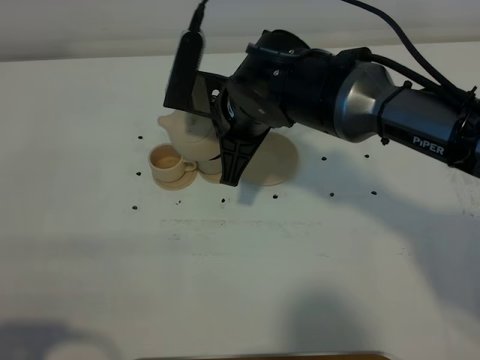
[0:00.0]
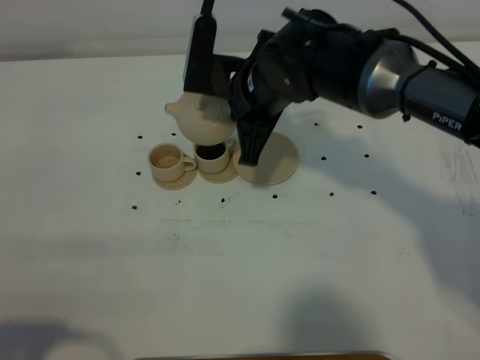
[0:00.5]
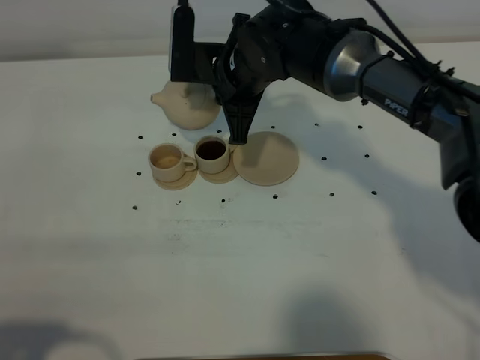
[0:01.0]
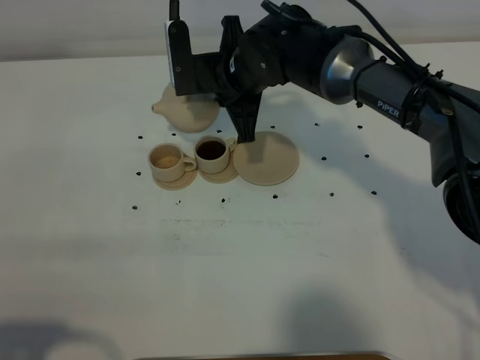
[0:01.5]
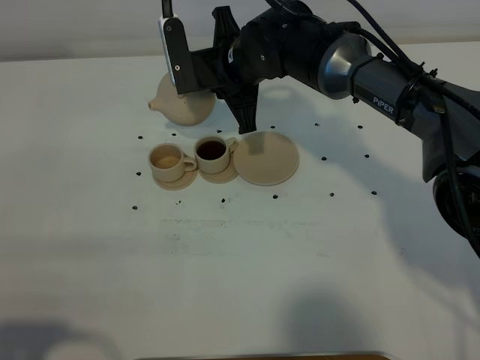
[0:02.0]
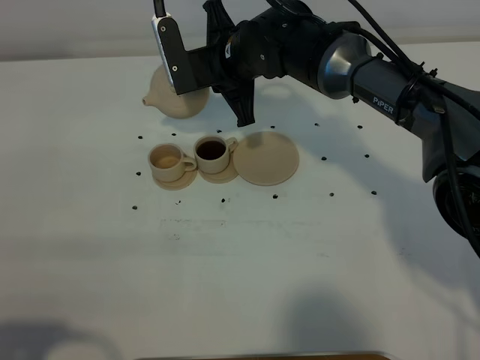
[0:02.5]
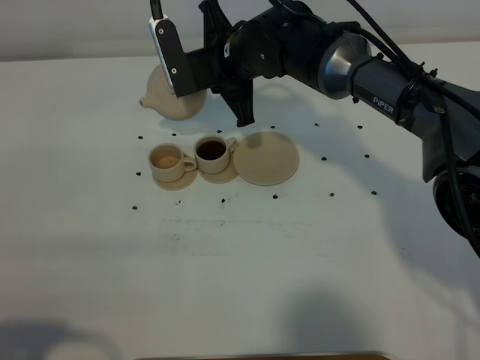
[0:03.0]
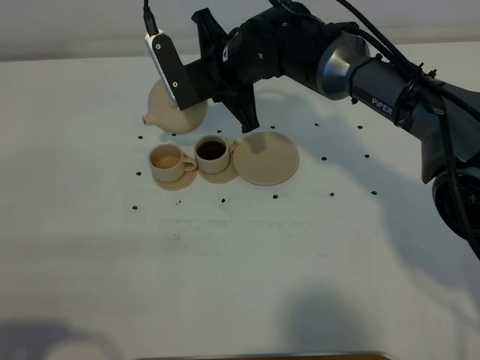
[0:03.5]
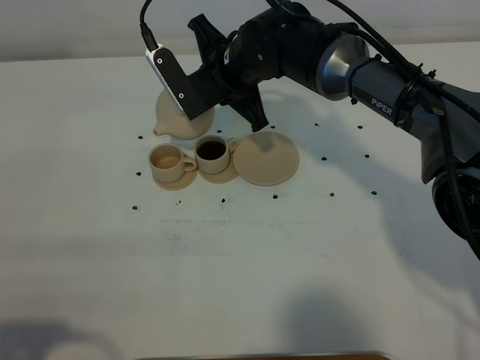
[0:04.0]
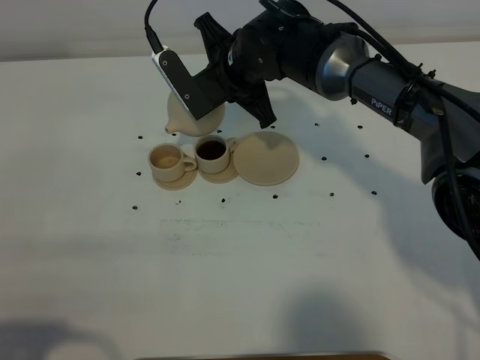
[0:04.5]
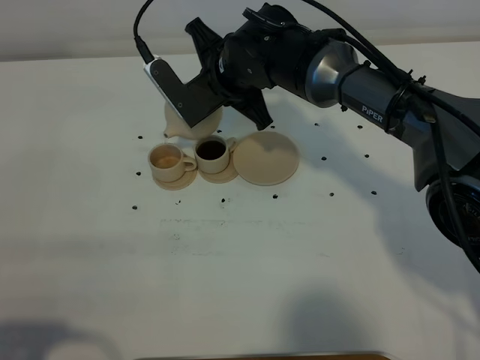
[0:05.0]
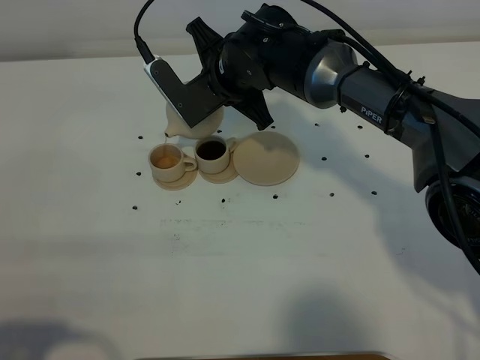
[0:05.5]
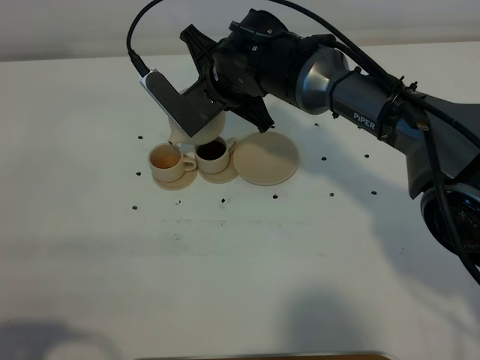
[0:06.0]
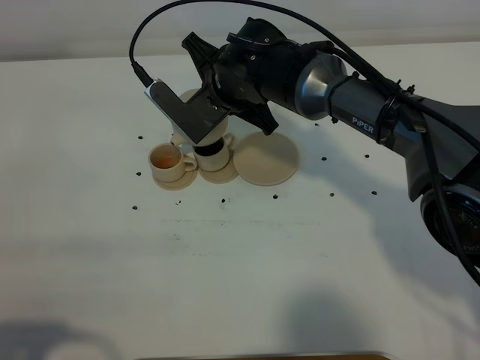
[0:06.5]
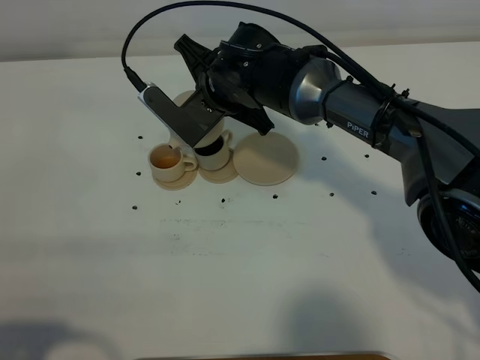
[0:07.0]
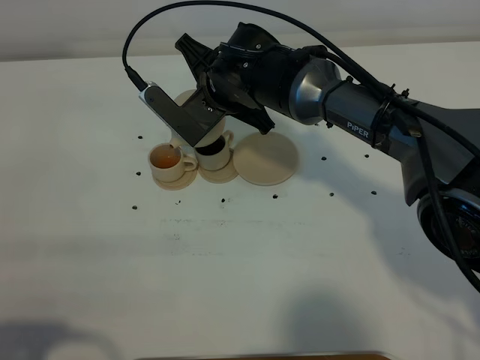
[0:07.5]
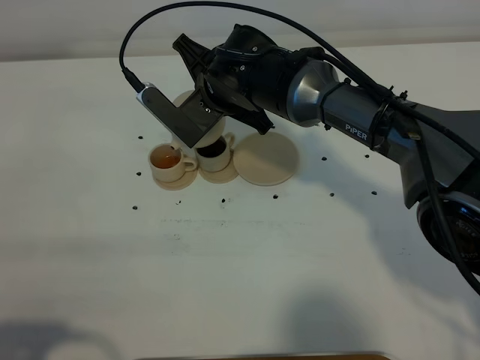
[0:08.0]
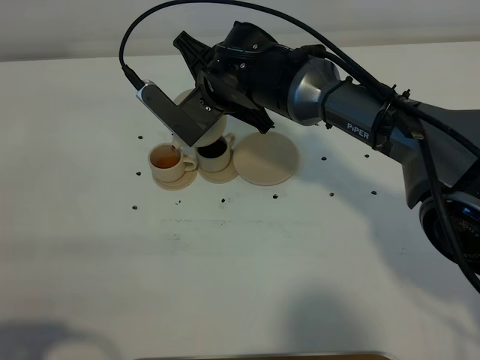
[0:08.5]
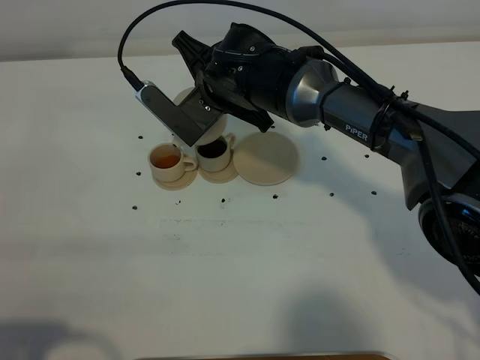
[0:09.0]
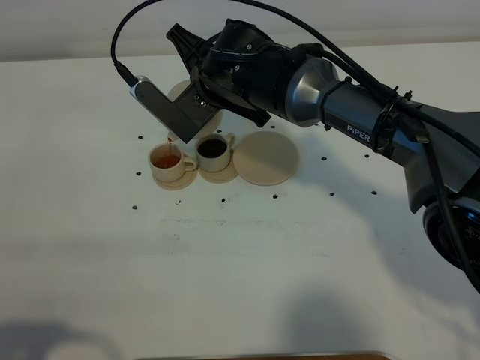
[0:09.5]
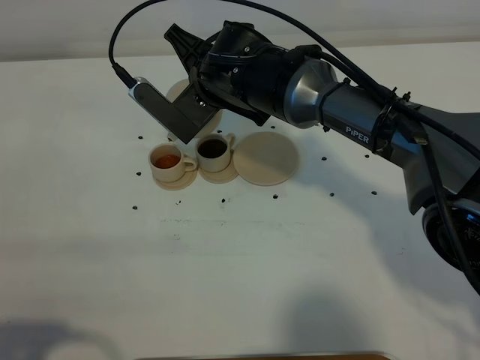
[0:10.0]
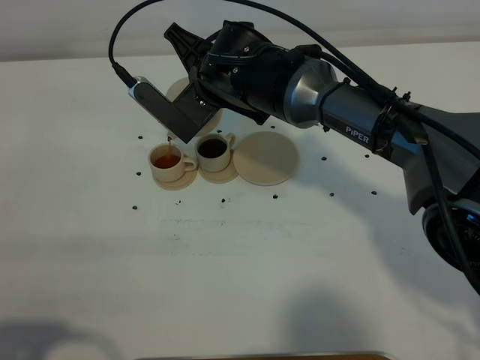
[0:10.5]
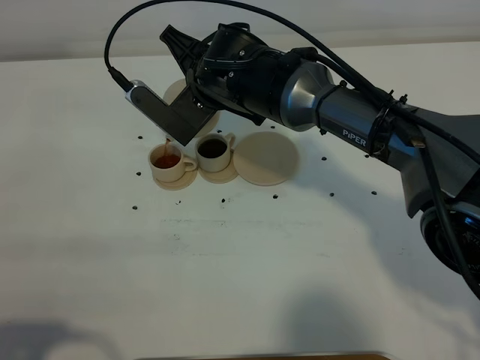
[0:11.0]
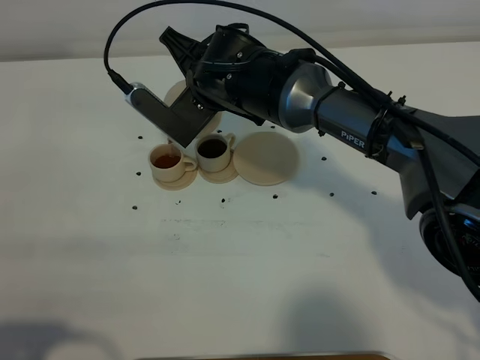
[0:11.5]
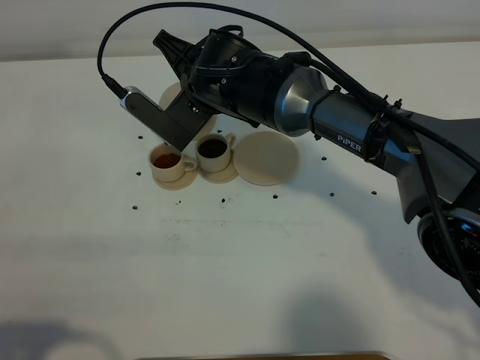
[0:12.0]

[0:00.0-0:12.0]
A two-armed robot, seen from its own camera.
Task of the whole recording: grasp the brown teapot and pour the tea into the two brown teacups one by one, put the brown teapot back in its original place.
0:00.0 to 0:02.0: The right gripper is displaced forward by some 10 cm.
0:04.0 to 0:08.0: There are only small adjustments of the grippers.
0:08.0 to 0:10.0: There are only small adjustments of the grippers.
0:10.0 to 0:12.0: Both grippers stay about where they are.

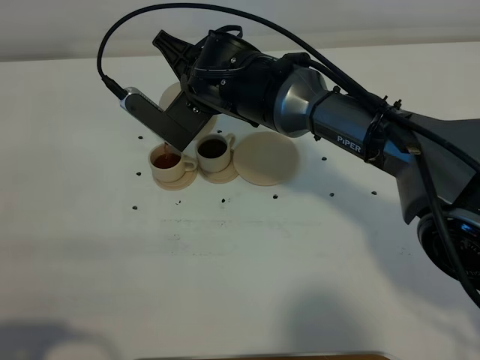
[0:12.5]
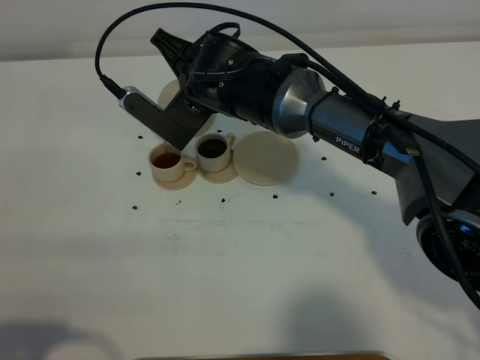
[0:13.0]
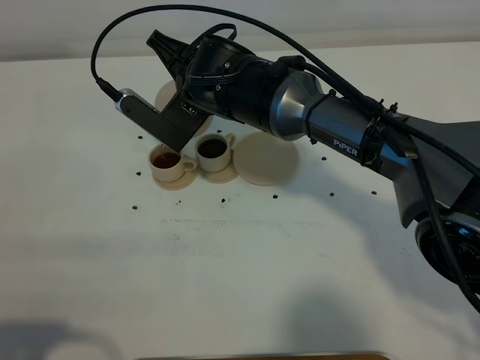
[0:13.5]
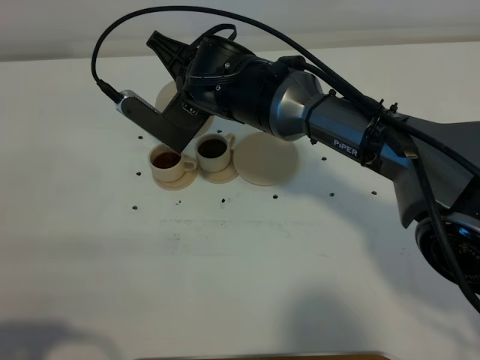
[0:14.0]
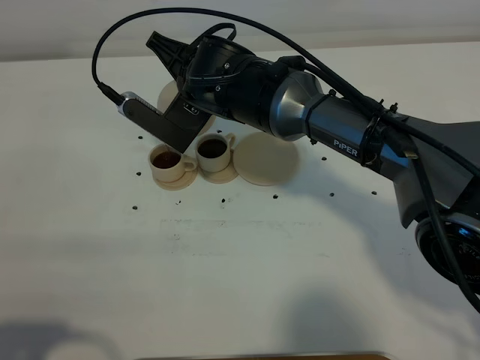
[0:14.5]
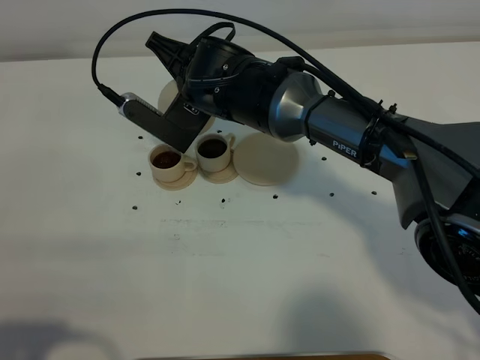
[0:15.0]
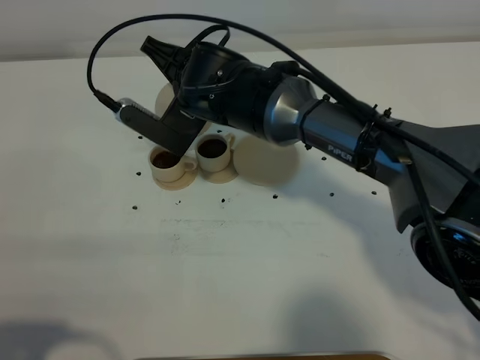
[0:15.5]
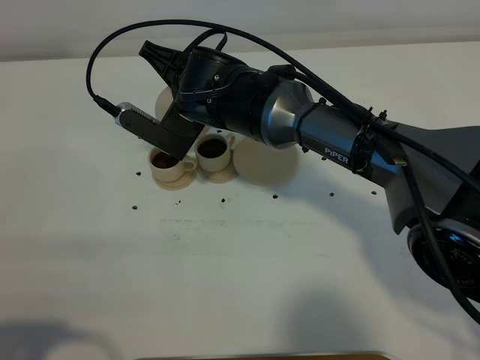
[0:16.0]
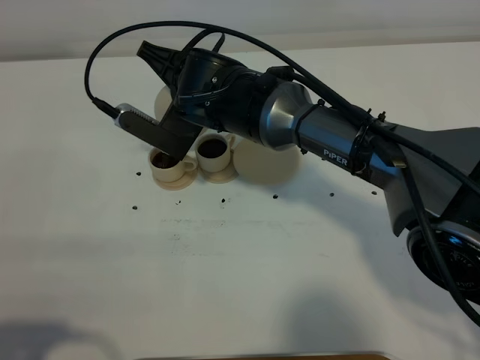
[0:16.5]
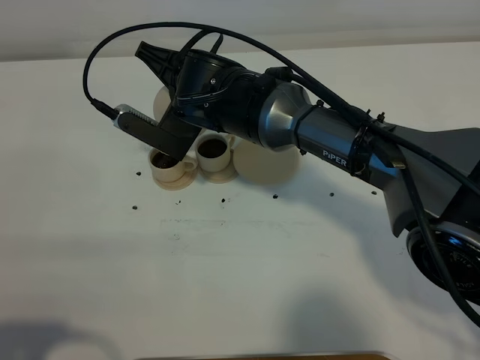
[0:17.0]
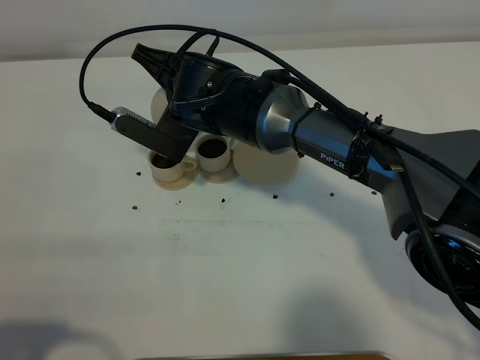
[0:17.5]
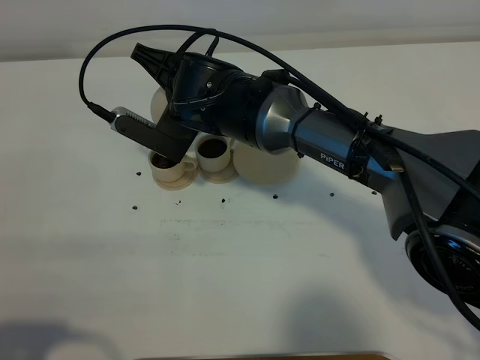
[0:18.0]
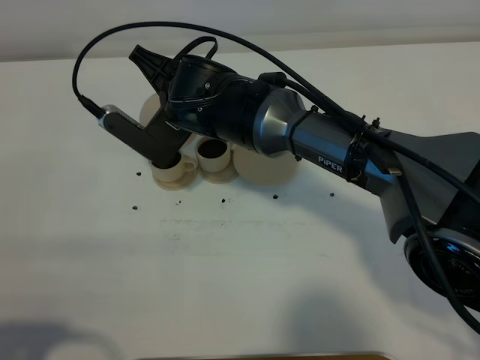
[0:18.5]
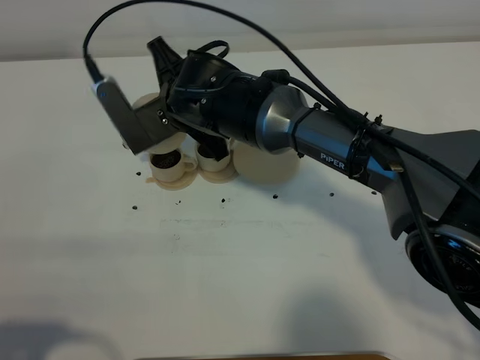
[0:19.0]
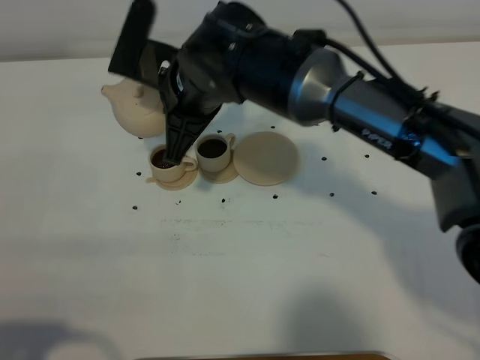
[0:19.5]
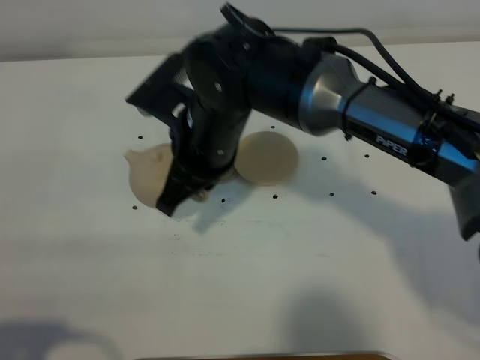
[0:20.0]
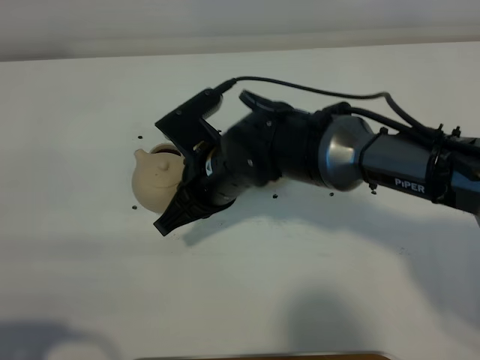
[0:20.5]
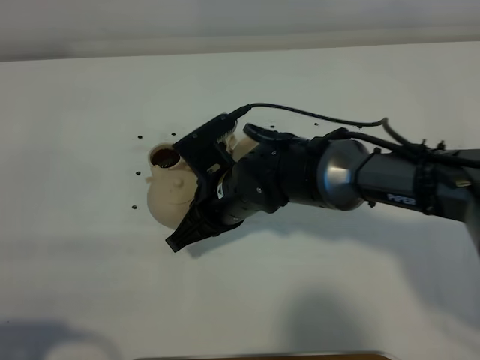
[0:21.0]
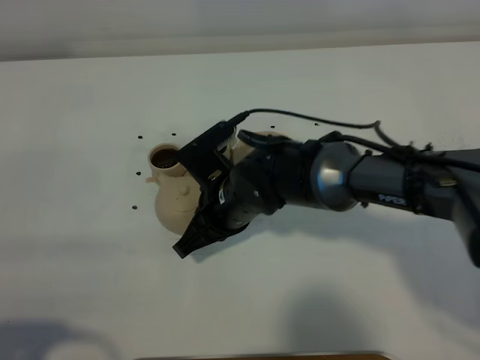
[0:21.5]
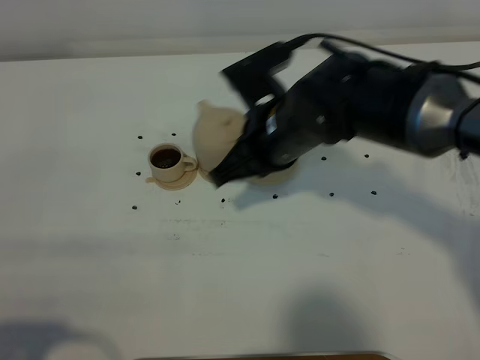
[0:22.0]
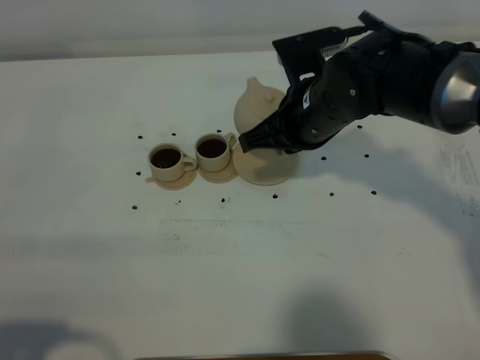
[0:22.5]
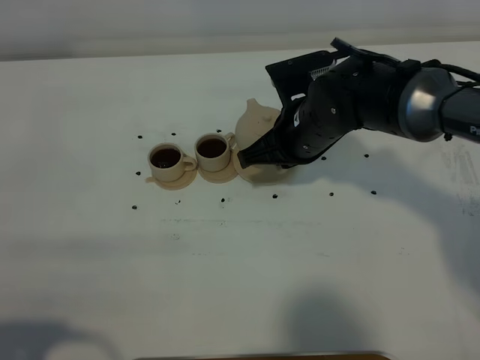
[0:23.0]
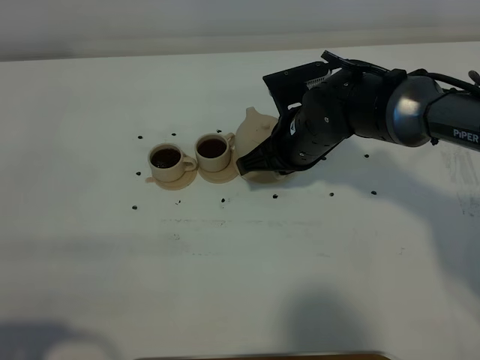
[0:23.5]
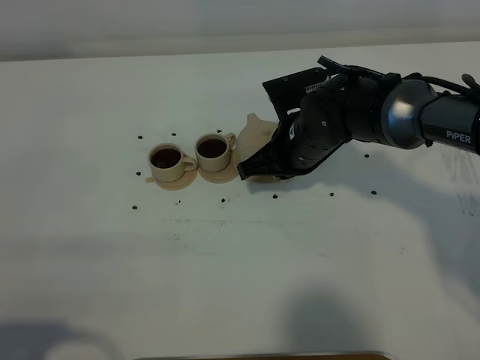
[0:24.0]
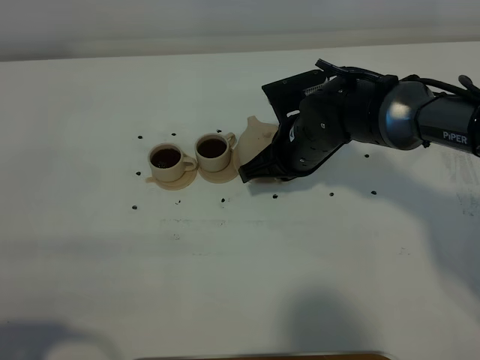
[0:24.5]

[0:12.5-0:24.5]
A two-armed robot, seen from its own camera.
Task of the whole recording: grasp the brown teapot and pour the tea into the two brown teacups one by one, put the brown teapot back in its original place.
Step, 0:12.5 to 0:19.0: Pour tea into the teacup with the right gripper.
0:12.5 to 0:14.5: The two grippers keep their place.
0:14.5 to 0:18.5: The grippers make only small movements.
0:18.5 to 0:20.5: The right gripper heads backward, covering approximately 10 cm.
0:20.5 to 0:22.5: The right gripper heads to the right, covering approximately 10 cm.
0:22.5 to 0:24.5: The right gripper is displaced downward by some 5 cm.

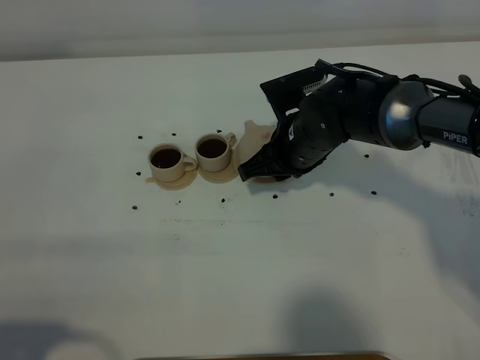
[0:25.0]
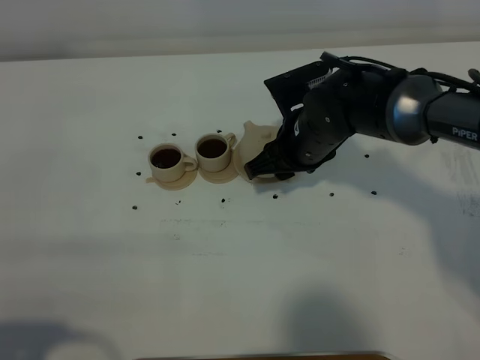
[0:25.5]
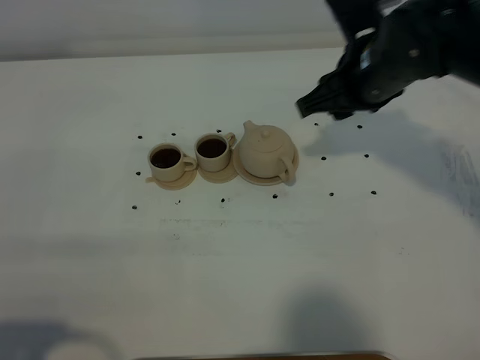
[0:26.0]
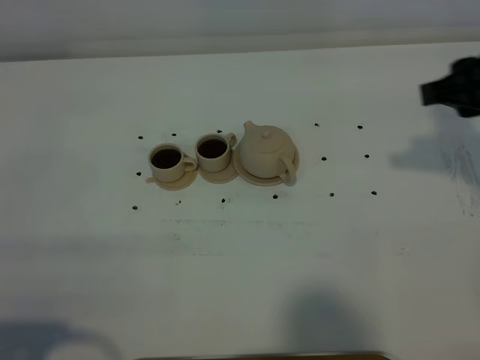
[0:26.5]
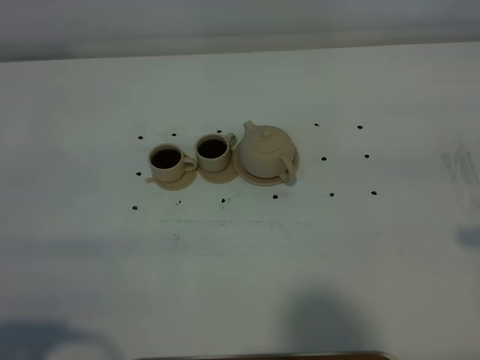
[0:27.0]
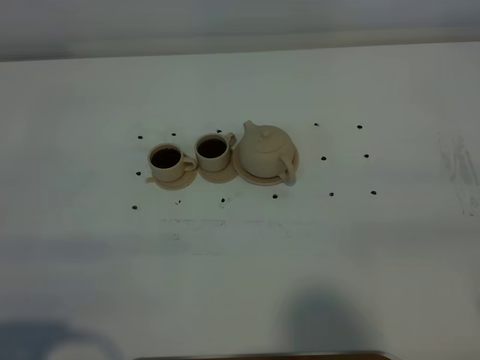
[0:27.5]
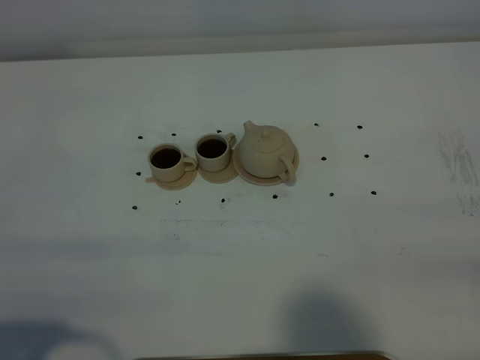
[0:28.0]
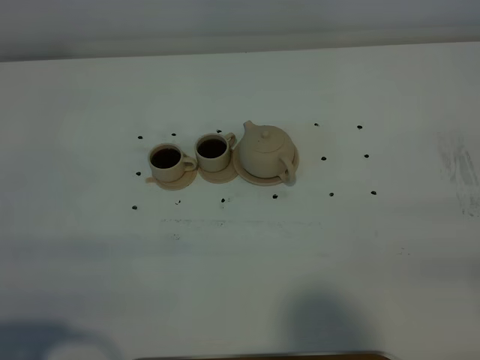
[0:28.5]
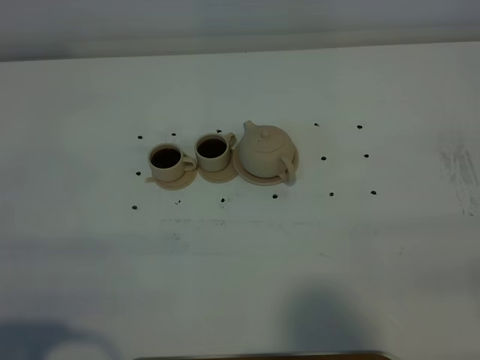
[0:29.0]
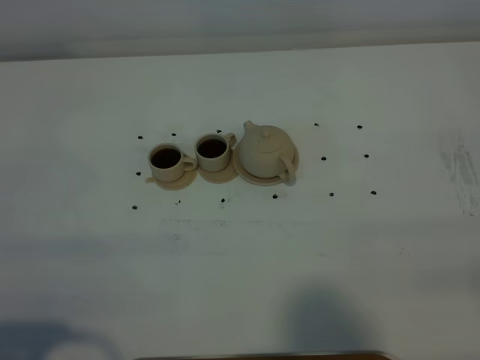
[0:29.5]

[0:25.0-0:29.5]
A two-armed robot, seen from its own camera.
Task of the whole recording: grasp the brown teapot and pour the tea into the two brown teacups one by one, put the brown teapot back in its original place.
0:25.0 to 0:27.0: The right gripper moves backward, to the right and upward, some 40 cm.
